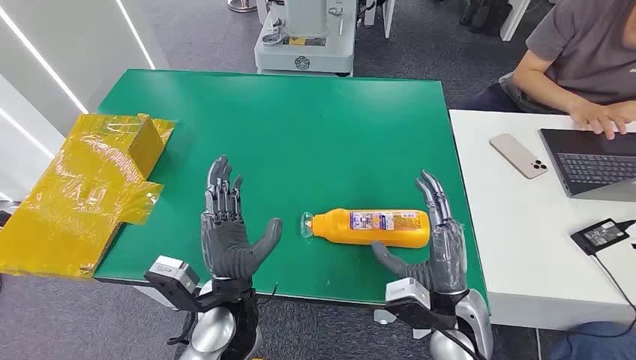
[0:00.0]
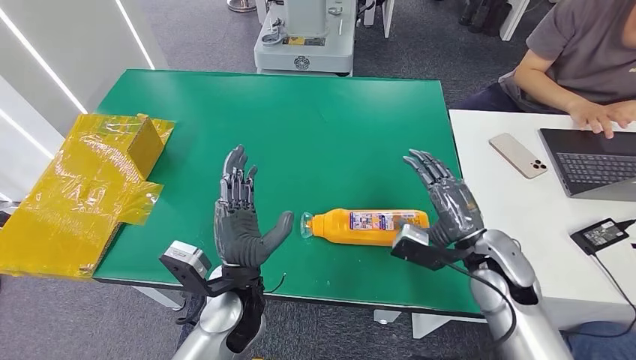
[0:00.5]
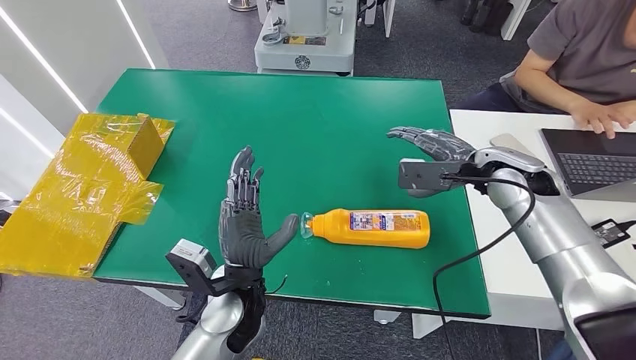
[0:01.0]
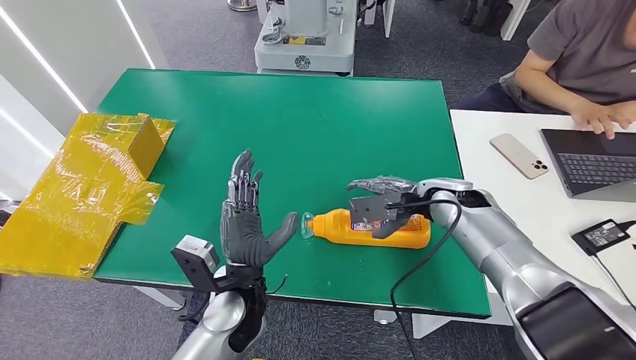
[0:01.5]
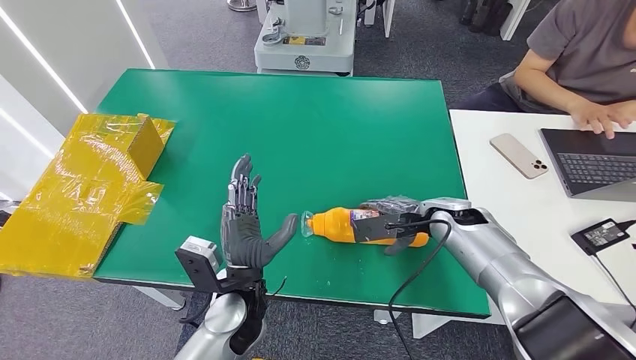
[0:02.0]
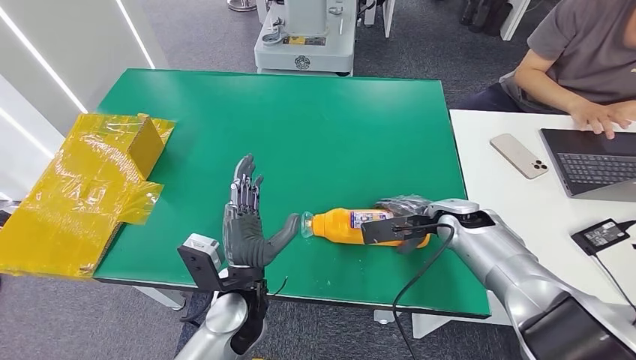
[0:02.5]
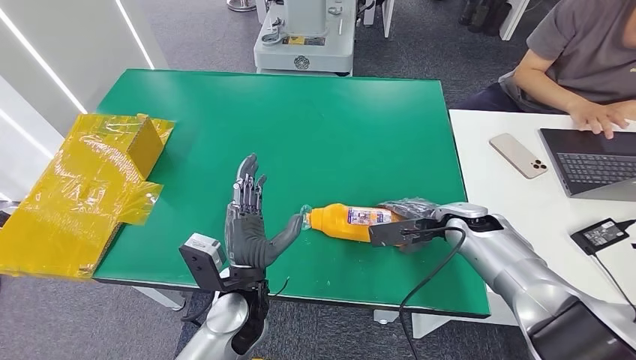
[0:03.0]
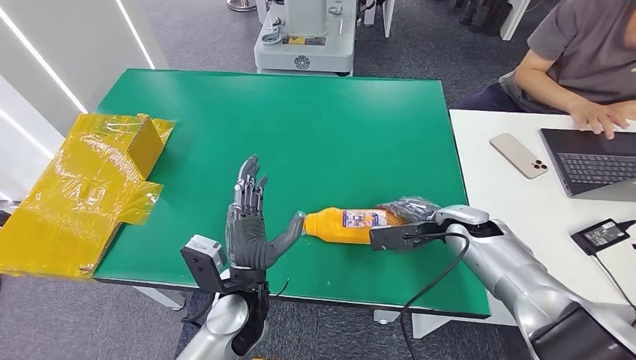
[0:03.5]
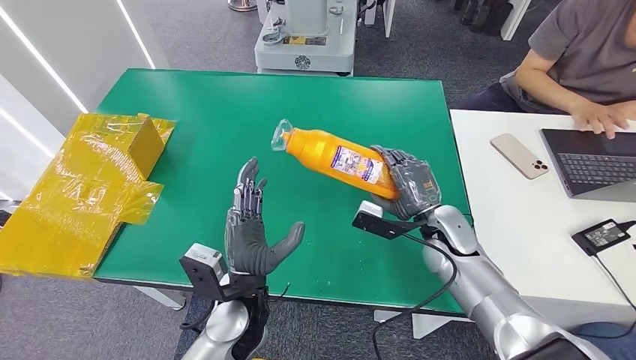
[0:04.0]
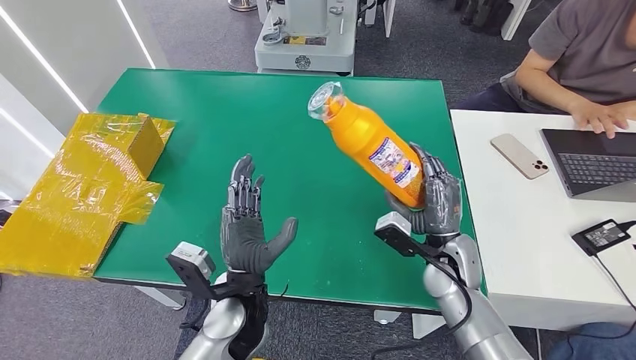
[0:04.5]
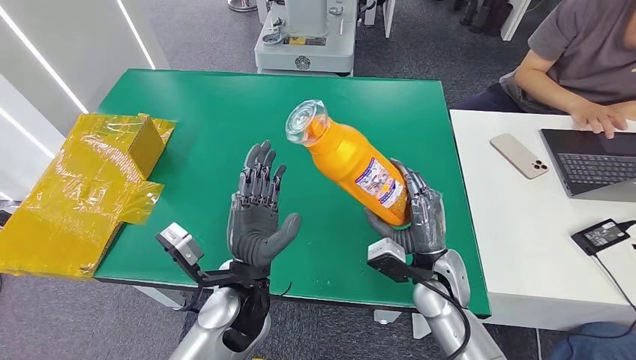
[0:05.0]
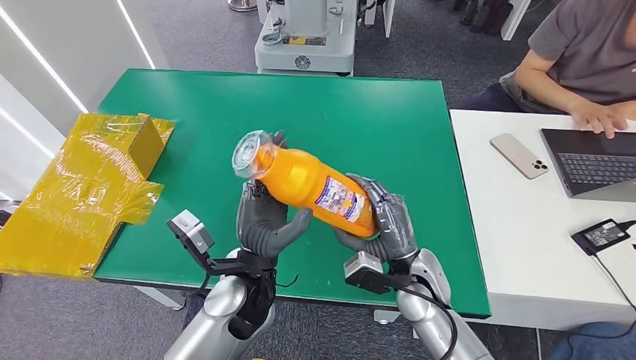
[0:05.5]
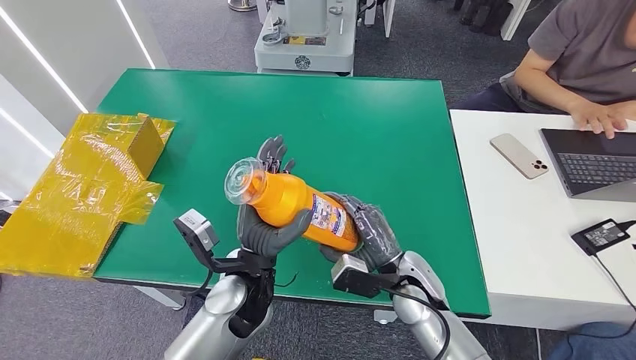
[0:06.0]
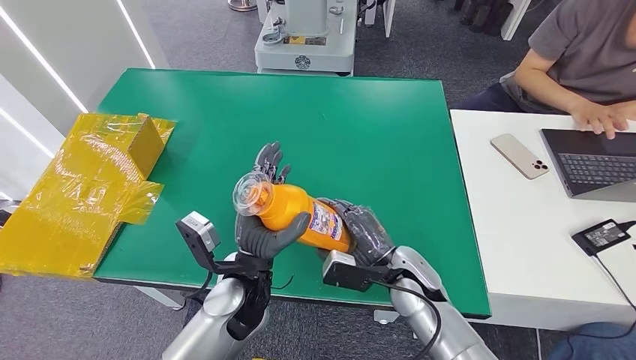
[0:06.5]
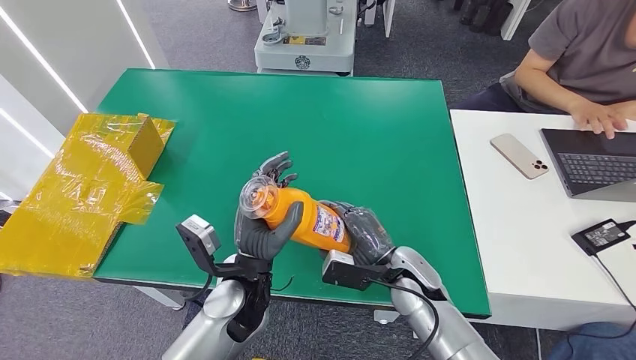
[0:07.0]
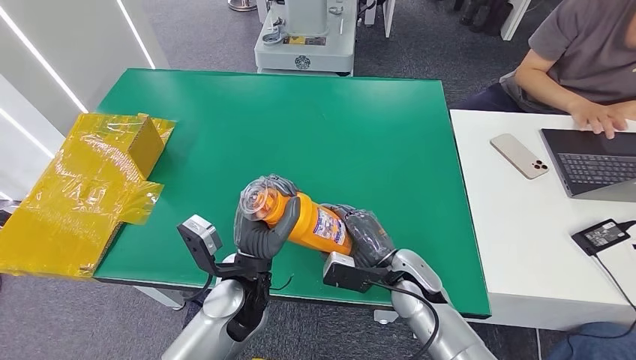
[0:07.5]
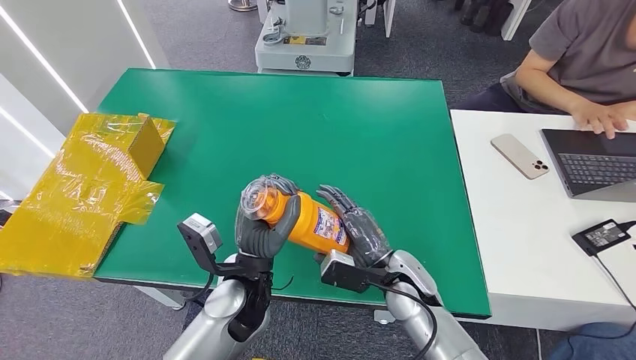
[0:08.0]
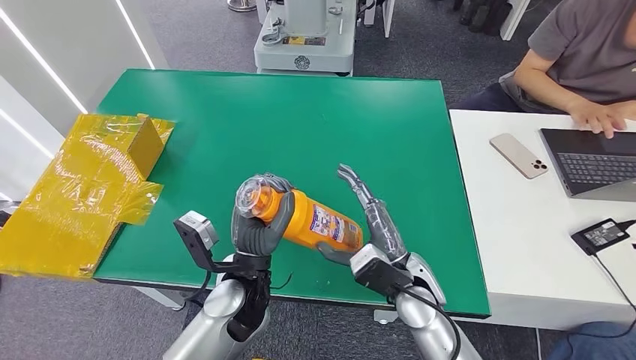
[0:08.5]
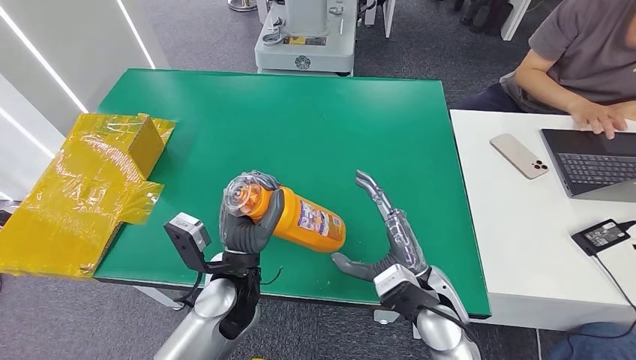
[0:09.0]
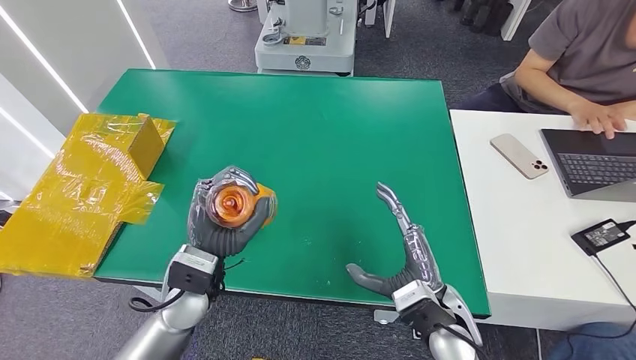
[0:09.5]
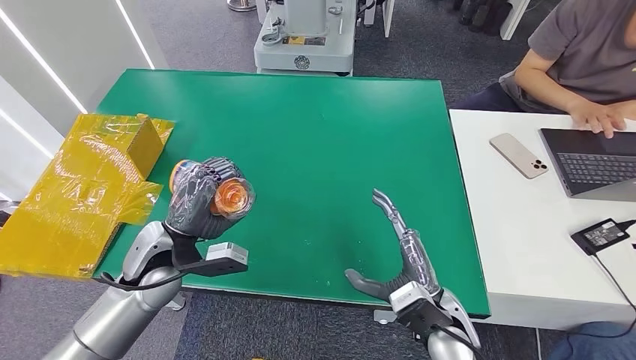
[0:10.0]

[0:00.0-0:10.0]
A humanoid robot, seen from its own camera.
Step, 0:00.0 to 0:04.5: Pick up the bottle from the table.
0:02.0 to 0:04.0: The right hand shifts by about 5 cm.
0:04.0 to 0:06.0: The right hand travels to the left and backward by approximately 15 cm.
0:06.0 to 0:08.0: The hands make only small movements.
0:08.0 to 0:10.0: The right hand heads backward, covering some 5 cm. The left hand moves to the left, roughly 15 cm.

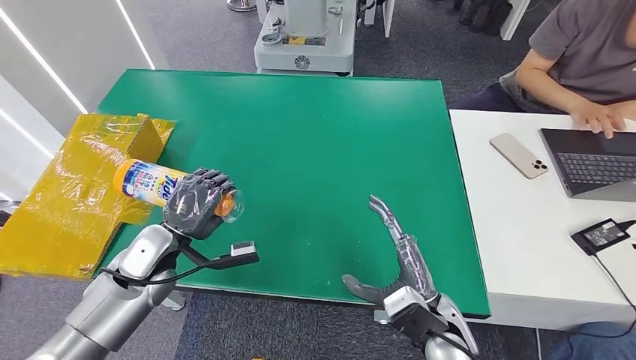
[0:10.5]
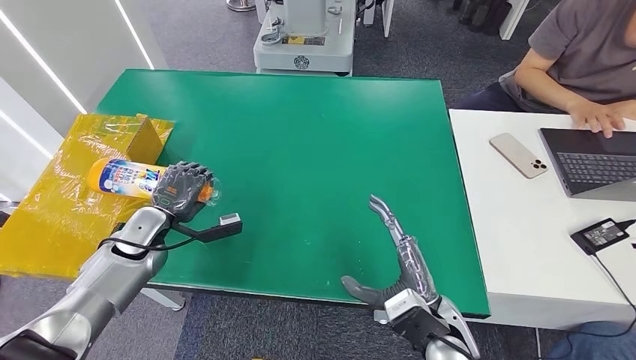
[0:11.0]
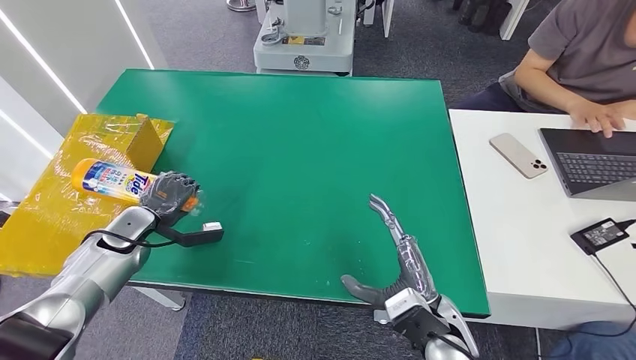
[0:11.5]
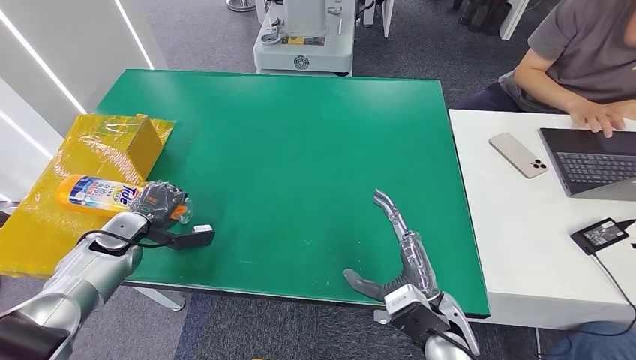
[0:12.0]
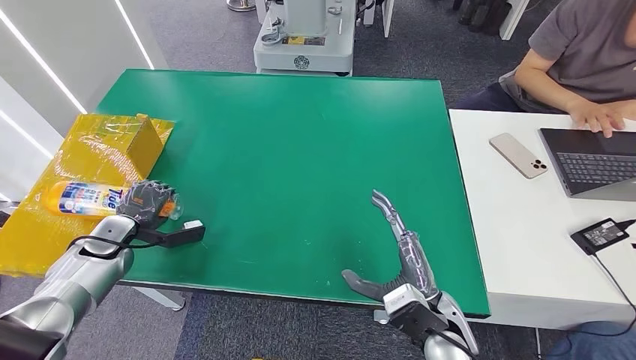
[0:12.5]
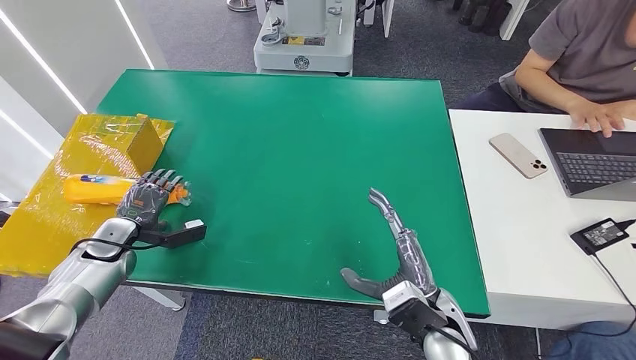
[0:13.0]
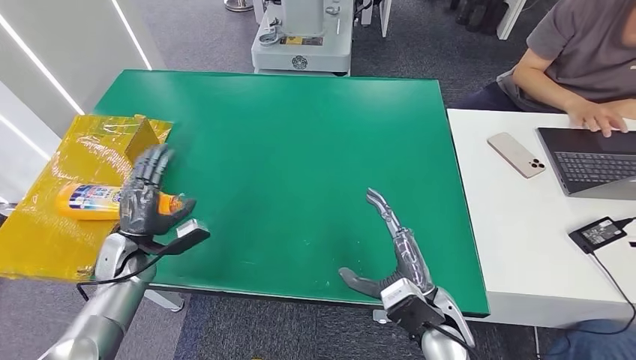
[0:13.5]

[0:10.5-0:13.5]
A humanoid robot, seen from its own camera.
Step, 0:10.5 to 0:13.5: Turn the bottle to the front side.
0:10.5 to 0:12.0: The left hand shifts some 10 cm to the left and downward.
0:12.0 to 0:13.5: The left hand ends up about 5 cm from where it was.
